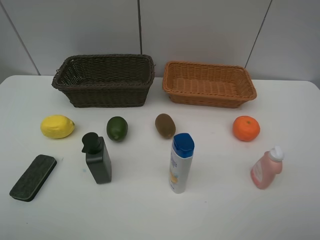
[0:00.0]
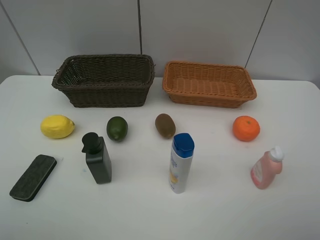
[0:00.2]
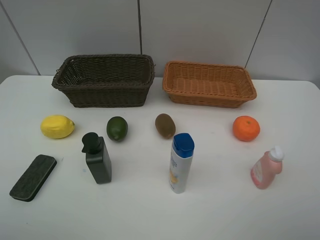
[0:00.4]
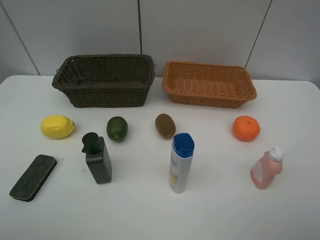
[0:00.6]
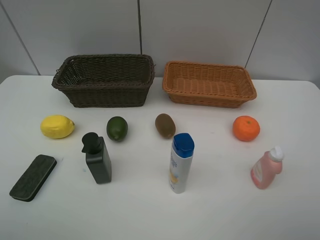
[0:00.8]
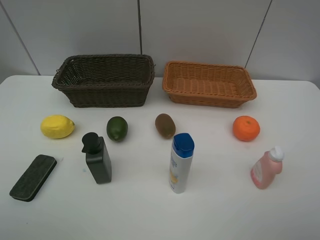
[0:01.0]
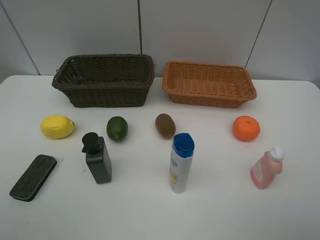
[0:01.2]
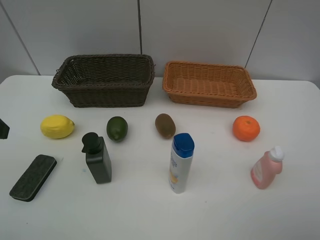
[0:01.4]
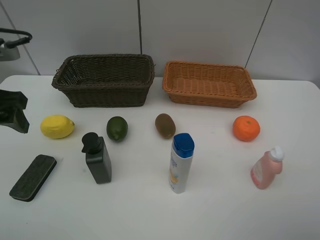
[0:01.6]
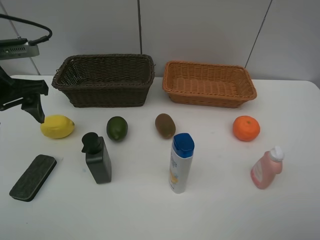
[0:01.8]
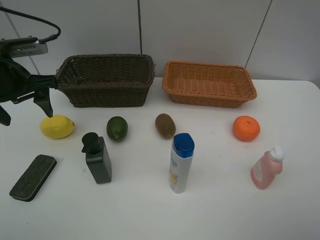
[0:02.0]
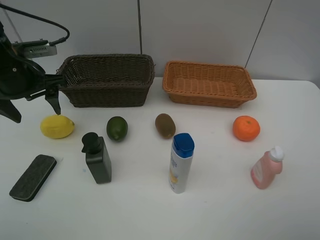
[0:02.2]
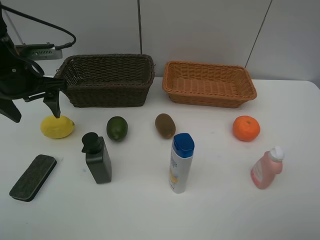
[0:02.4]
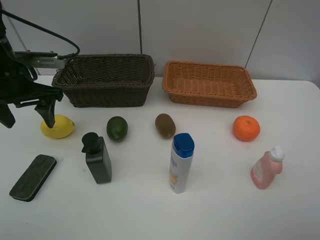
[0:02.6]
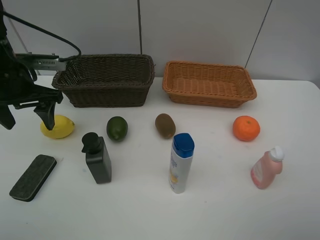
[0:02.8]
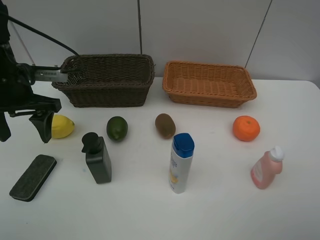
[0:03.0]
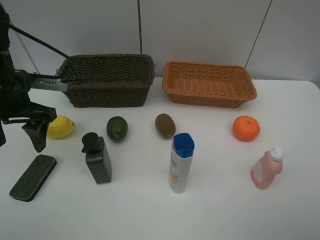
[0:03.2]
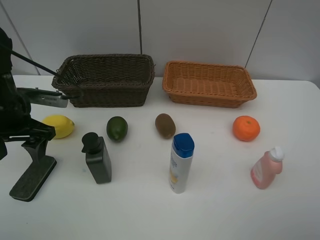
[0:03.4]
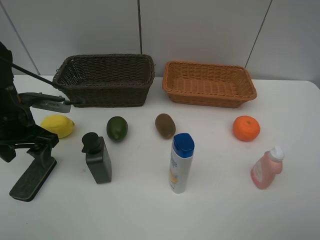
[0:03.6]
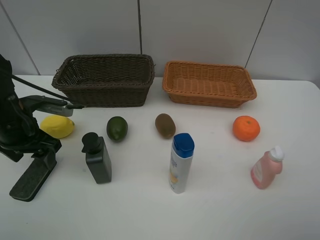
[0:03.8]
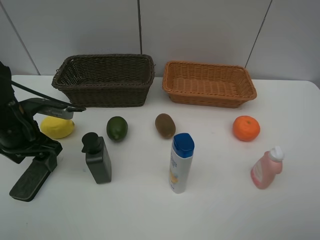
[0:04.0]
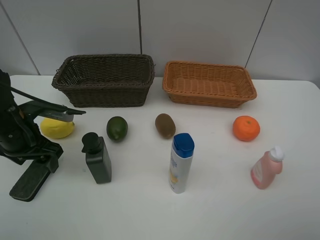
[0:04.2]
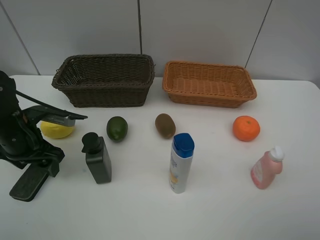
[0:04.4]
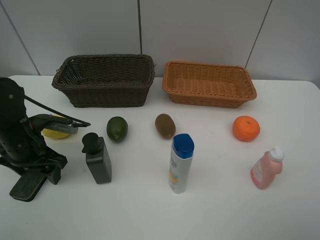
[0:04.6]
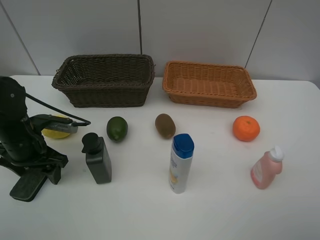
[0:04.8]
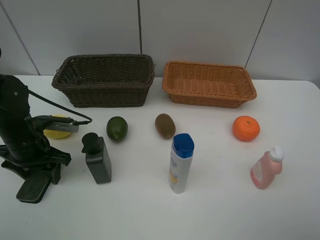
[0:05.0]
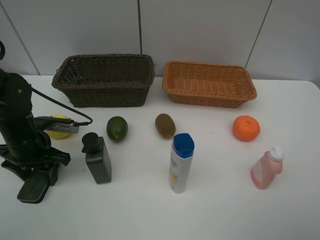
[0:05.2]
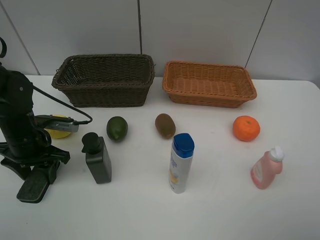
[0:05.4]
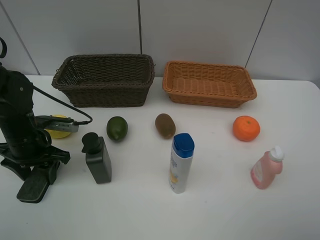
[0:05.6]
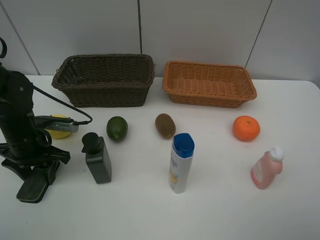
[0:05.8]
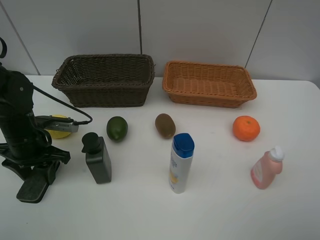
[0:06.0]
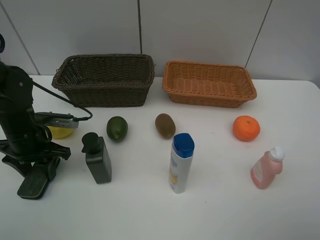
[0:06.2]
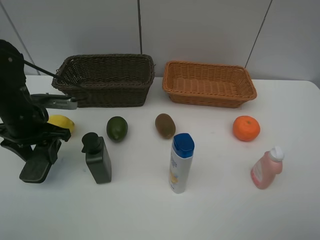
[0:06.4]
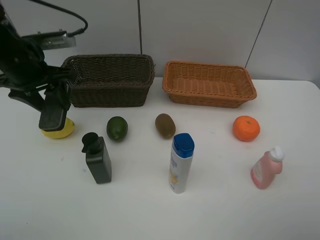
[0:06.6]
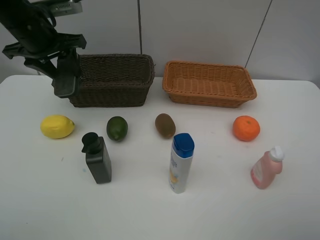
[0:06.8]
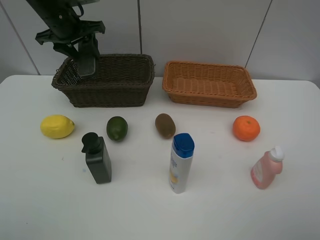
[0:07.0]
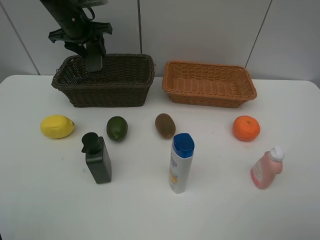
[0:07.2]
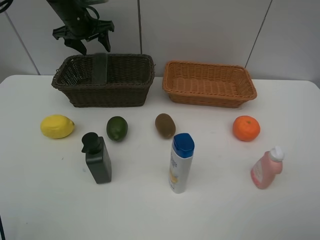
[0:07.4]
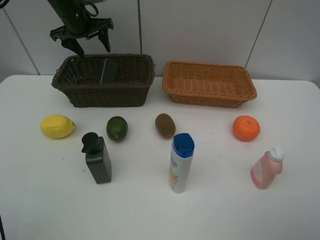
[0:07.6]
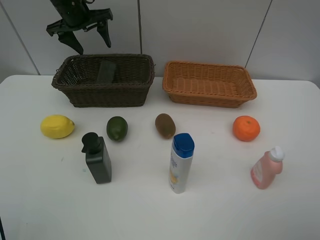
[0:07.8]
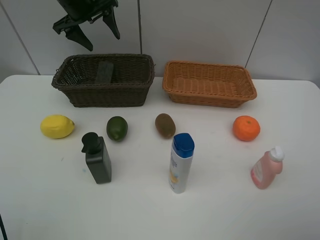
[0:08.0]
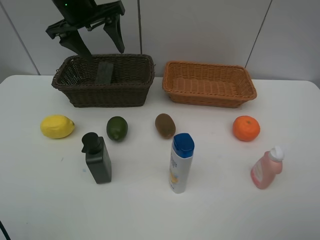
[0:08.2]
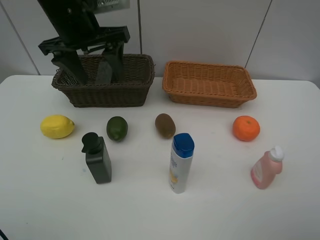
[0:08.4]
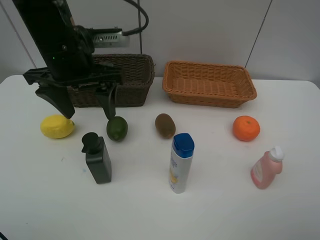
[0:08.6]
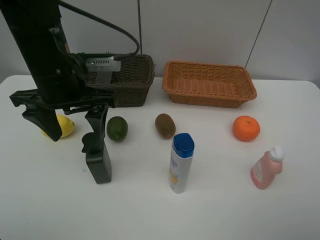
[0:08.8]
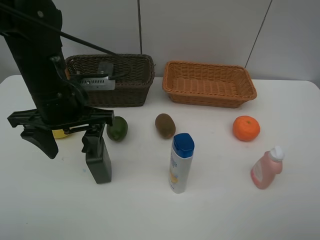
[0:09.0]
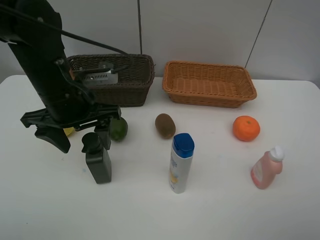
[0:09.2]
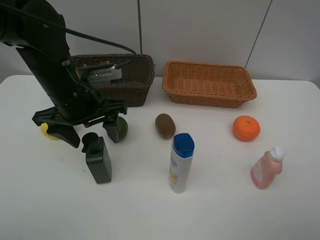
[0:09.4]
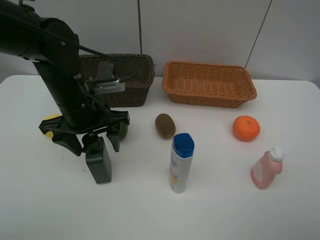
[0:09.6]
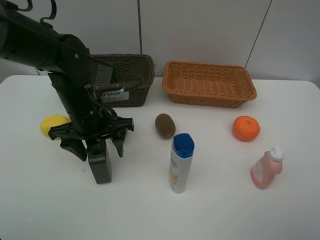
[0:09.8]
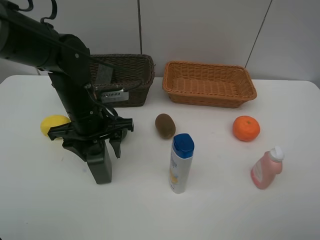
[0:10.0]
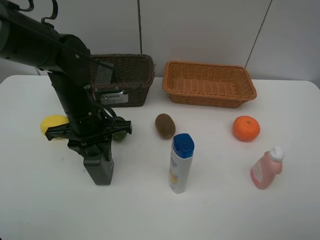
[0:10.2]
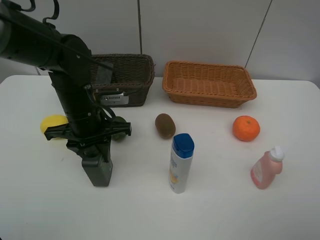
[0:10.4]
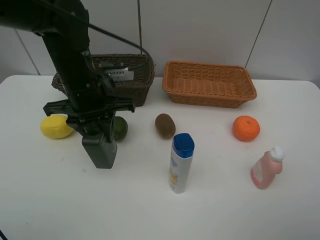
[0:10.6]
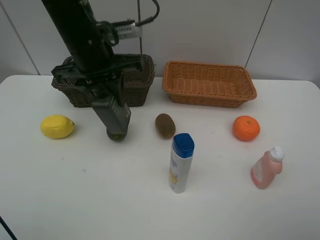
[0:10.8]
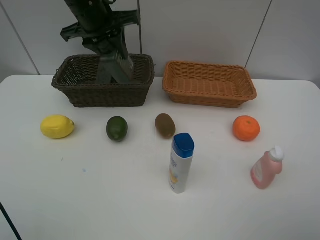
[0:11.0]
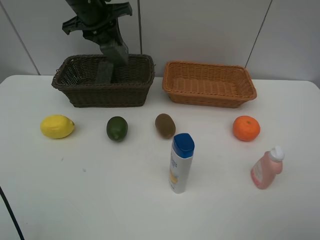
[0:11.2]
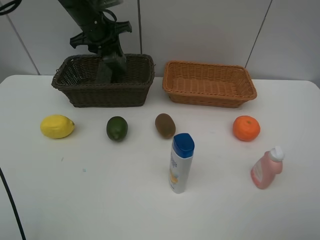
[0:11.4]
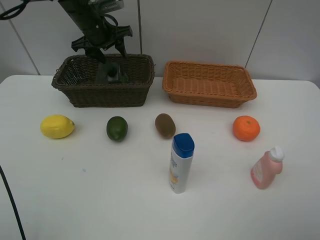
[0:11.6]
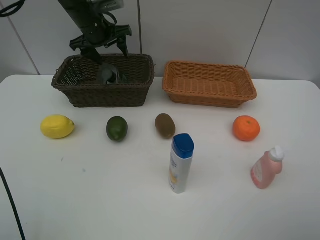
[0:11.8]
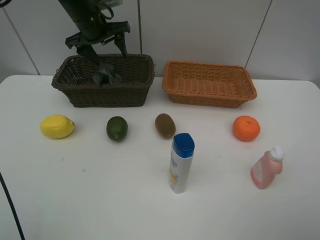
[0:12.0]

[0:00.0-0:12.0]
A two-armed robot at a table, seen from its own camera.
Task of the whole recording: Place multiple objects separately in different baskets.
Step, 0:00.0 to 0:06.2: Pick up blackboard eraser with left gripper.
Step, 0:06.4 to 0:10.4: Pick up the hard facial cleanser with left gripper.
Step, 0:10.6 to 0:11.6: Place the hard facial cleanser in the dark basket with left gripper.
0:00.0 to 0:01.6: The left gripper moves forward, some 20 cm.
0:01.6 to 0:03.0: The left gripper moves forward, some 10 cm.
0:03.0 to 0:04.4: The left gripper shifts roughly 10 cm downward.
0:04.4 to 0:06.0: The left gripper closes.
0:06.0 to 0:07.6: The left gripper goes approximately 30 cm forward and upward, and opens up.
0:07.6 to 0:09.0: The left gripper moves backward, approximately 25 cm.
0:09.0 to 0:10.4: The left gripper goes roughly 5 cm downward, and closes.
0:10.4 to 0:12.0: The left gripper travels forward and upward by some 20 cm, and opens up.

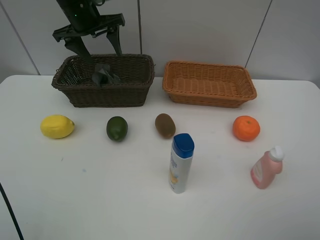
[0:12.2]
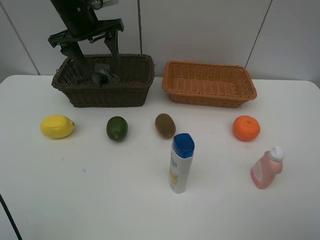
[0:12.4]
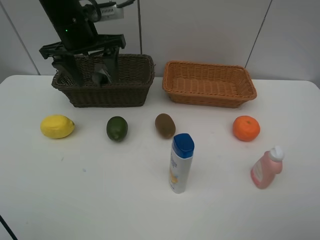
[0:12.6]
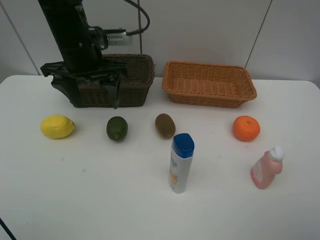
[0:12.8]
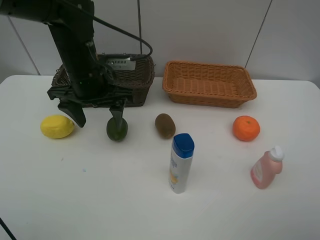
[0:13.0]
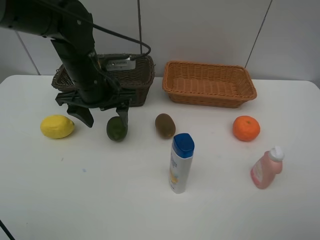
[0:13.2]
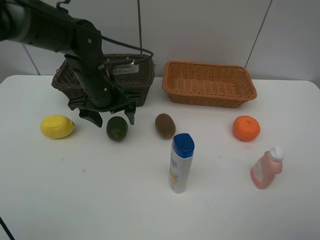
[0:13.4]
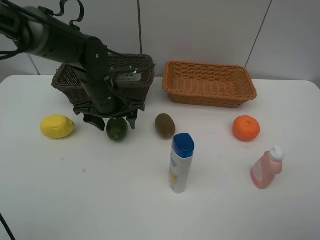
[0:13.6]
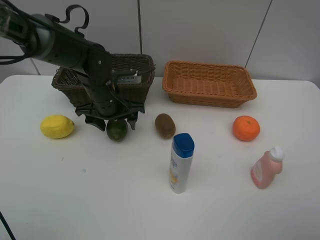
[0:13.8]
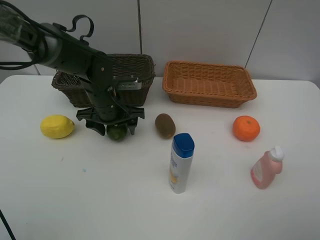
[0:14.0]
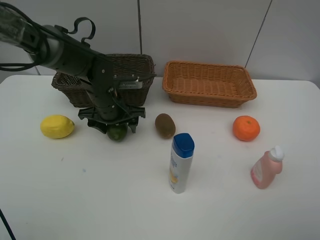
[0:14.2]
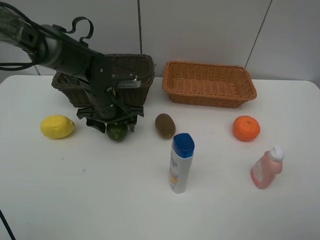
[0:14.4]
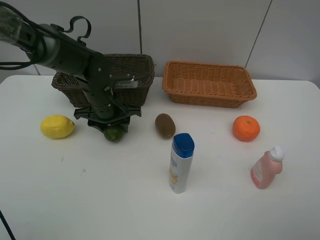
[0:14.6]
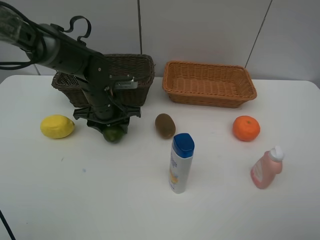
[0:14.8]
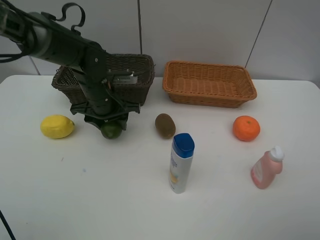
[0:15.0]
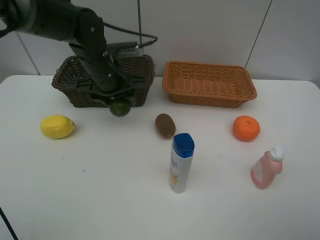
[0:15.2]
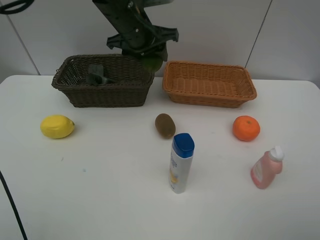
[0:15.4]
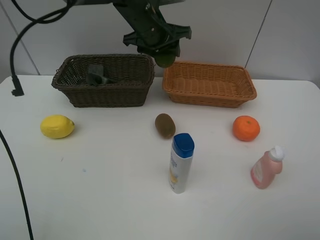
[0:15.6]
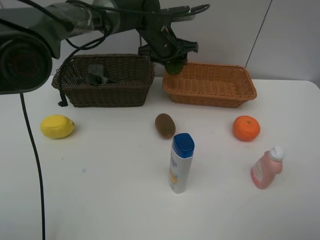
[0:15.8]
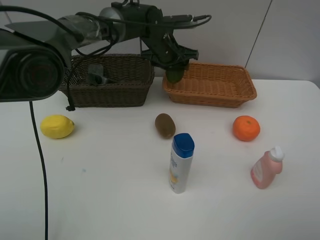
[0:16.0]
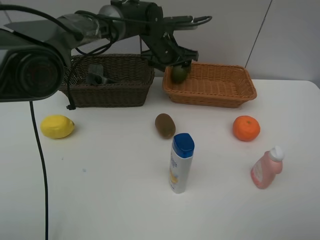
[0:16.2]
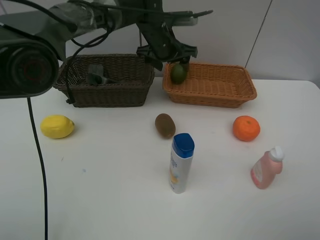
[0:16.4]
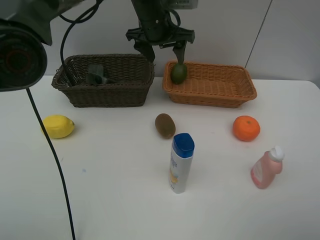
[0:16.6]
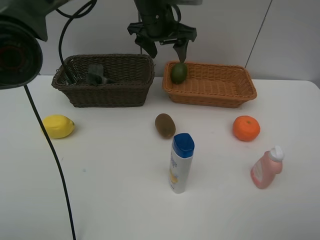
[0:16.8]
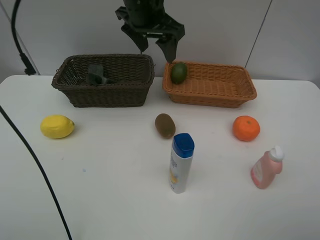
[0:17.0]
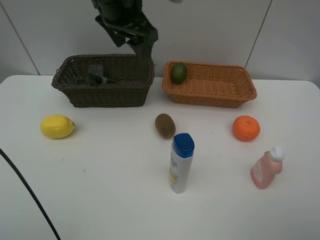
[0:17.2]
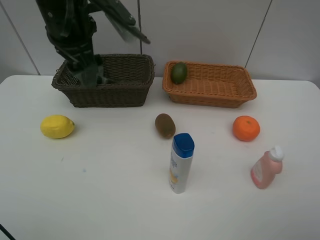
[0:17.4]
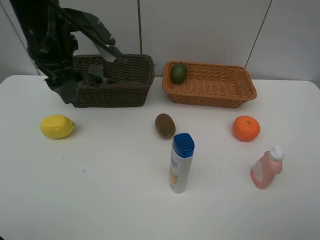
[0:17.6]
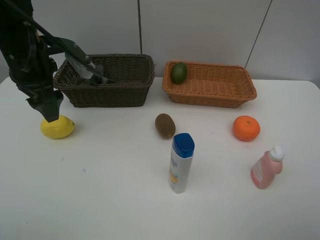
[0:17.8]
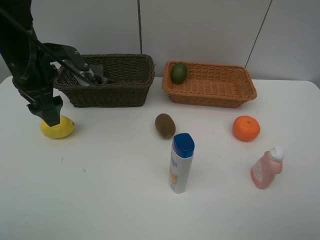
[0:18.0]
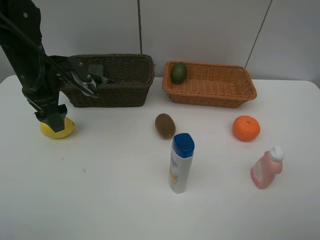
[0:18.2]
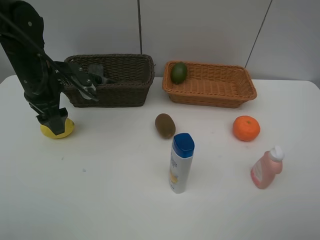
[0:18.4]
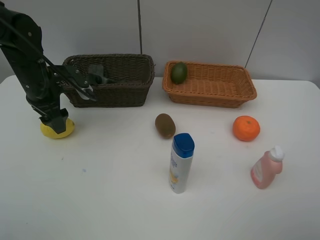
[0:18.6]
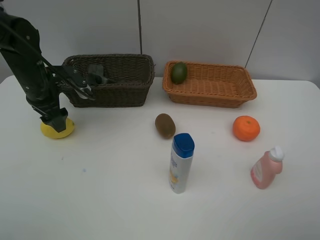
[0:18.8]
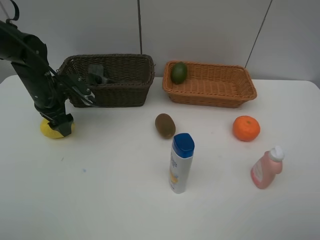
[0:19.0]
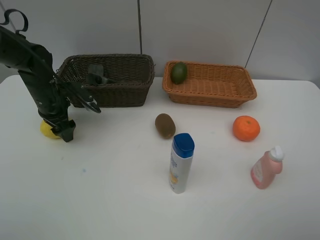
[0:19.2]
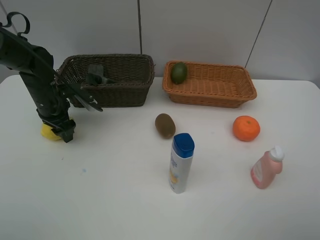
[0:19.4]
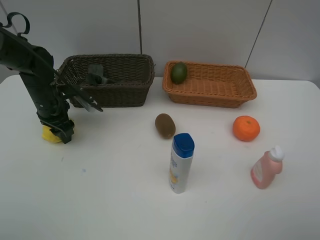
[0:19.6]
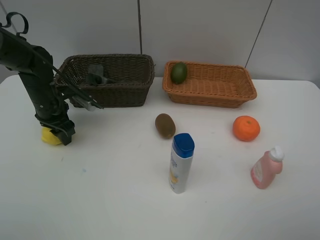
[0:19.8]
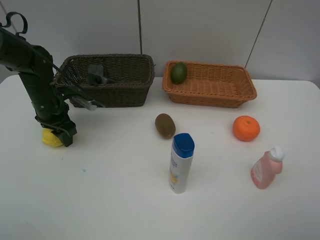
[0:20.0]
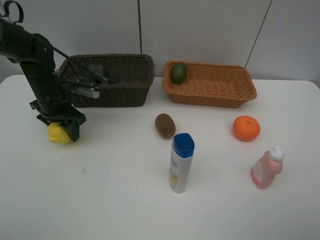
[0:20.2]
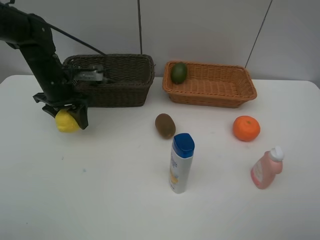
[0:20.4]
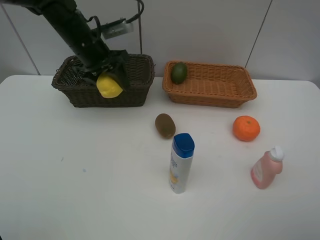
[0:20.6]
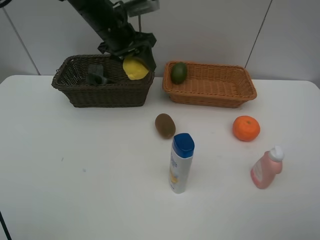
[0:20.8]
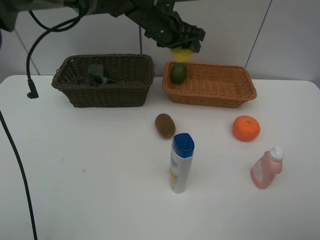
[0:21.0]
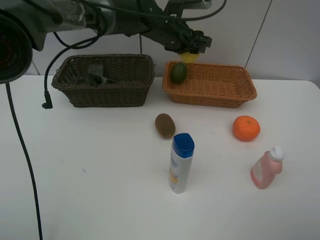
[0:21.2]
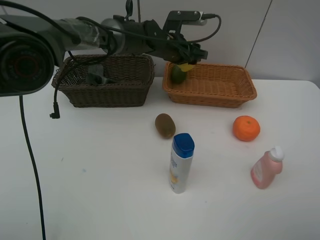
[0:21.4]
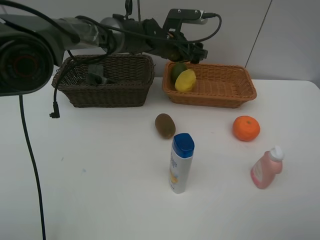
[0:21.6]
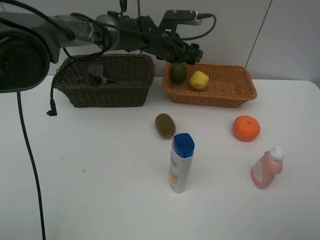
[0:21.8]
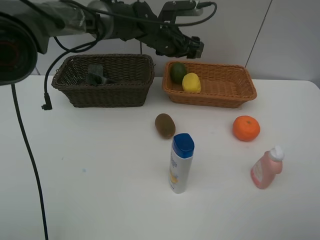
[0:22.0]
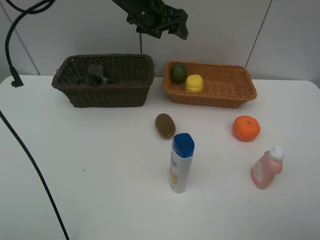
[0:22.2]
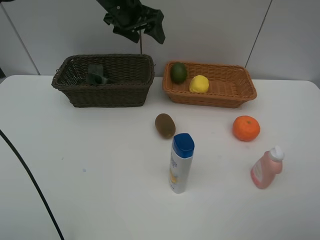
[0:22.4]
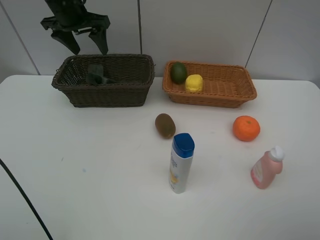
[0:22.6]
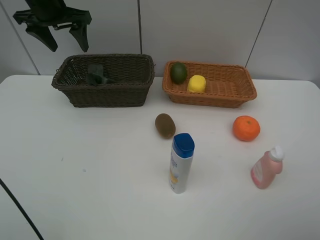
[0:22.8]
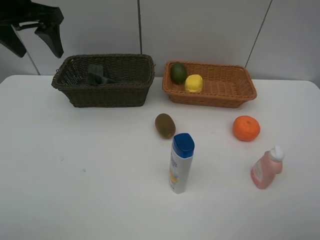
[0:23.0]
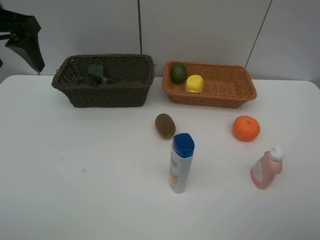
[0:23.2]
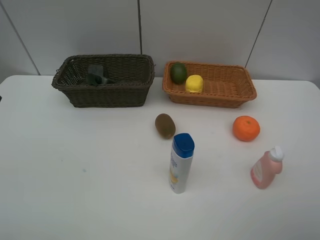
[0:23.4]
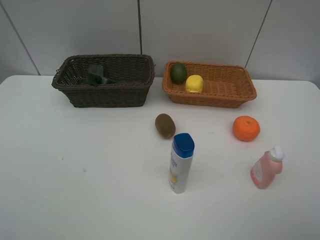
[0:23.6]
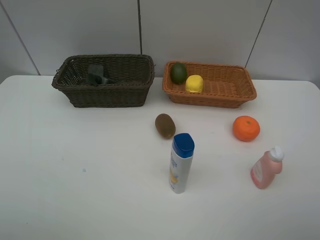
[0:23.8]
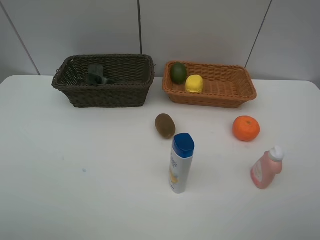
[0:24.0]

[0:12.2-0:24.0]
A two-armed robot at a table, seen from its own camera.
Task of the whole recording: Place multiple objects separately in different baskets.
Step, 0:12.2 to 0:15.0: Pick up the lime with left gripper.
Step, 0:15.2 to 0:16.2: Place the lime in the light basket with left gripper.
Step, 0:16.4 to 0:20.2: Pick up the lemon with left gripper.
Step, 0:20.4 to 0:21.6: Place the lemon in the light basket with left gripper.
0:12.2 to 0:13.6: The left gripper travels downward, backward and to the right by roughly 20 cm.
0:13.6 to 0:15.2: The left gripper goes some 5 cm upward, and closes its fingers.
0:15.2 to 0:16.6: The left gripper travels to the right, forward and upward by roughly 15 cm, and opens up.
0:16.6 to 0:18.2: The left gripper travels to the left and backward by approximately 25 cm.
0:18.2 to 0:19.6: The left gripper goes roughly 10 cm downward, and closes up.
0:19.6 to 0:21.0: The left gripper is displaced to the right and upward by some 30 cm.
0:21.0 to 0:22.6: The left gripper travels to the left by roughly 20 cm, and opens up.
0:22.6 to 0:24.0: The left gripper goes some 40 cm backward.
